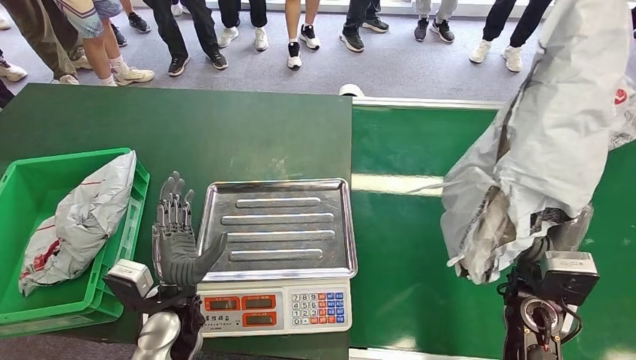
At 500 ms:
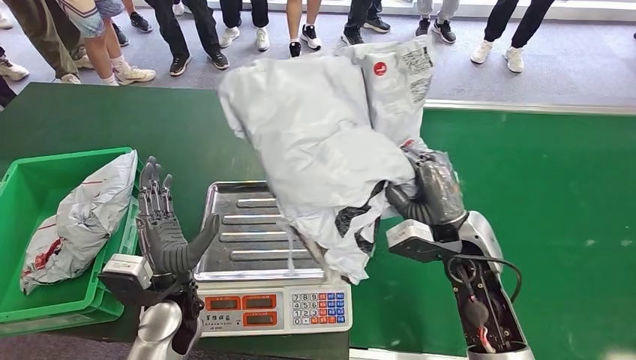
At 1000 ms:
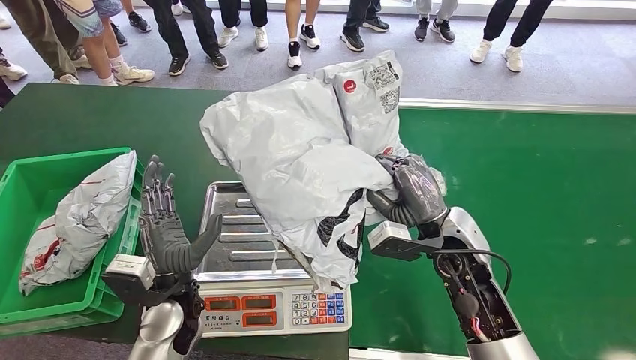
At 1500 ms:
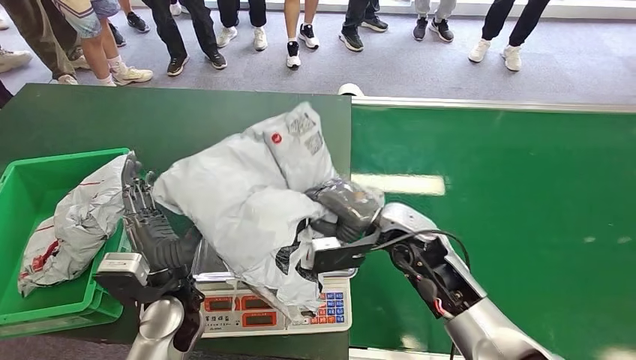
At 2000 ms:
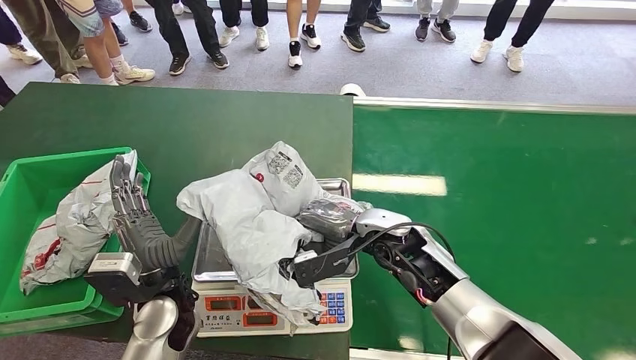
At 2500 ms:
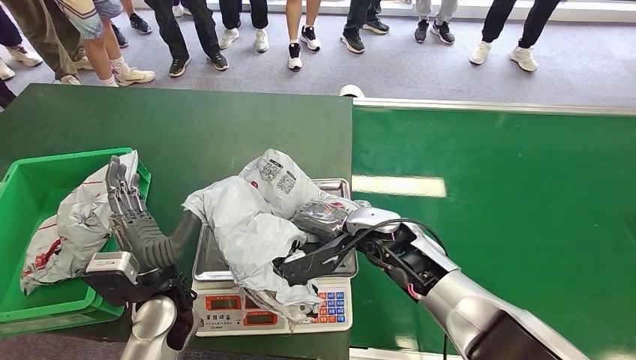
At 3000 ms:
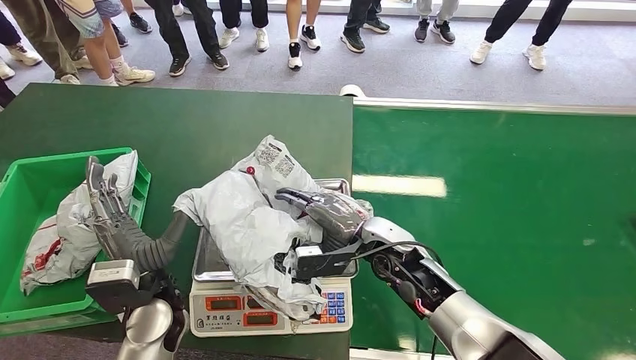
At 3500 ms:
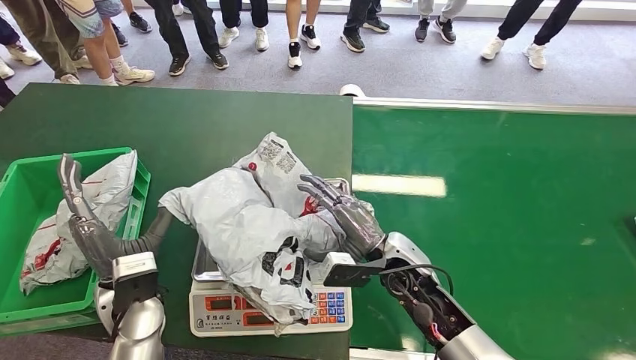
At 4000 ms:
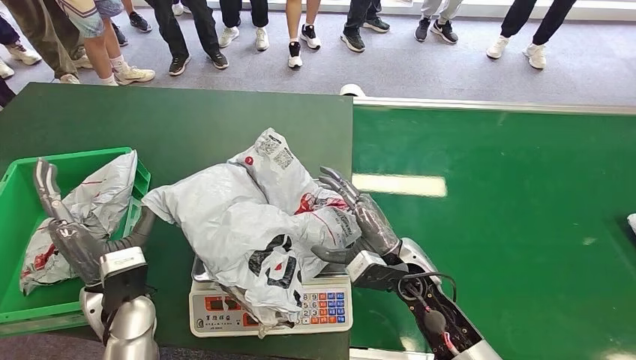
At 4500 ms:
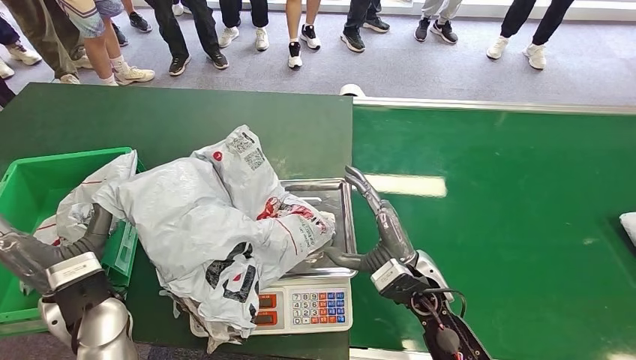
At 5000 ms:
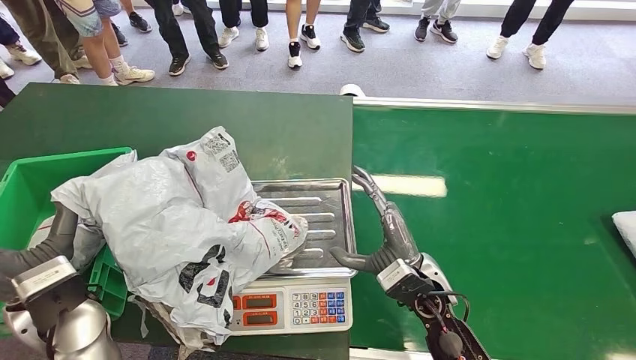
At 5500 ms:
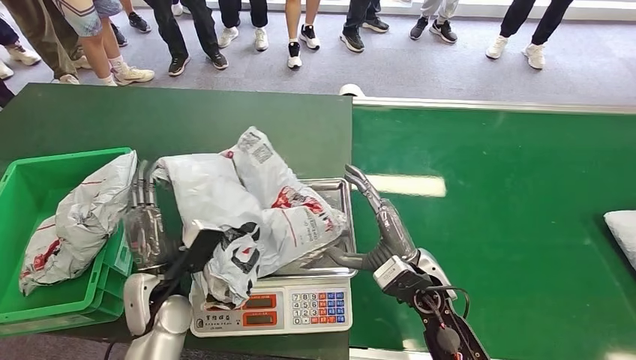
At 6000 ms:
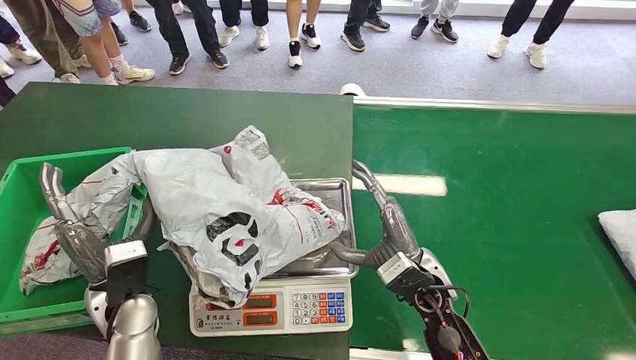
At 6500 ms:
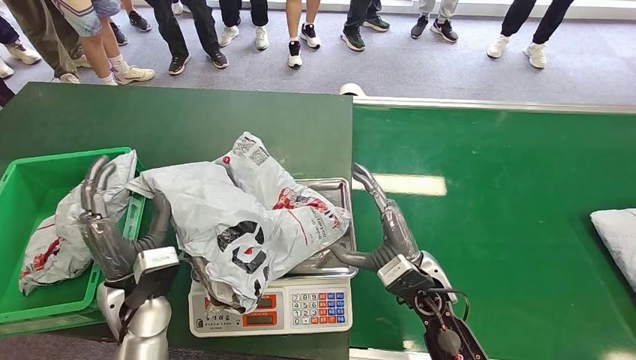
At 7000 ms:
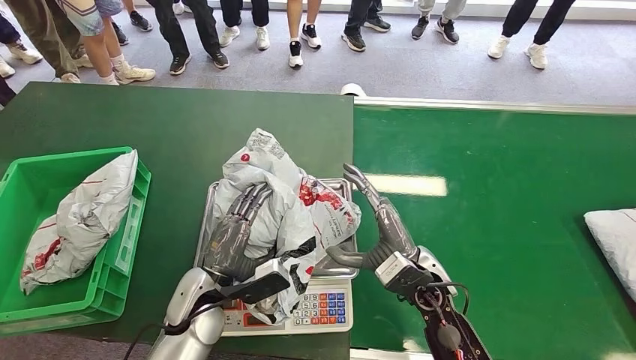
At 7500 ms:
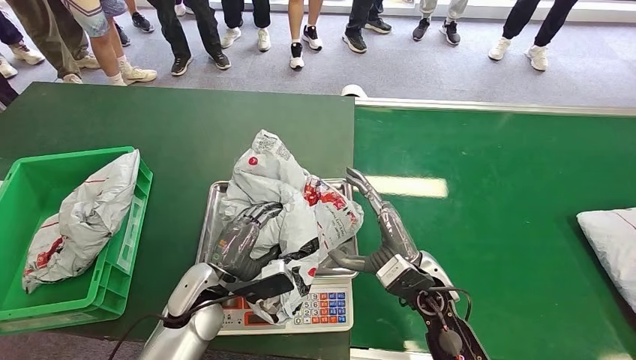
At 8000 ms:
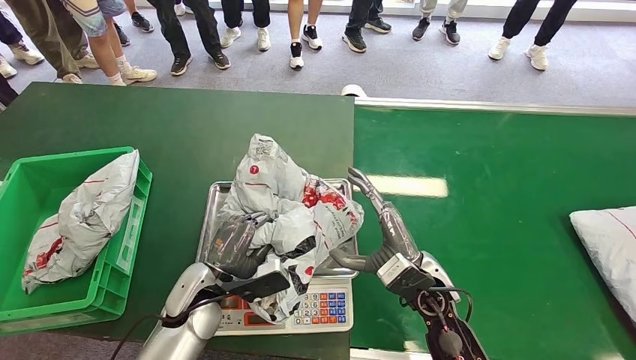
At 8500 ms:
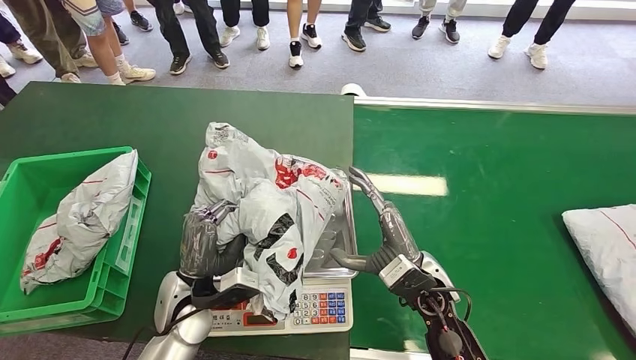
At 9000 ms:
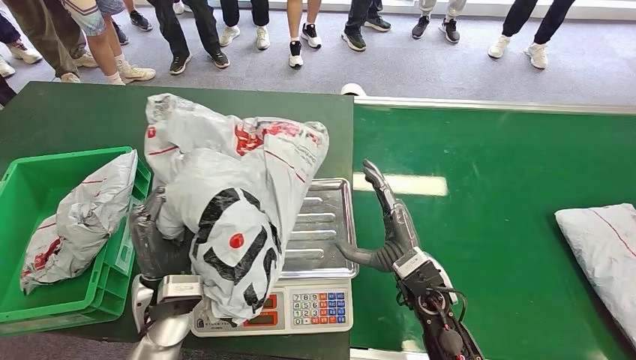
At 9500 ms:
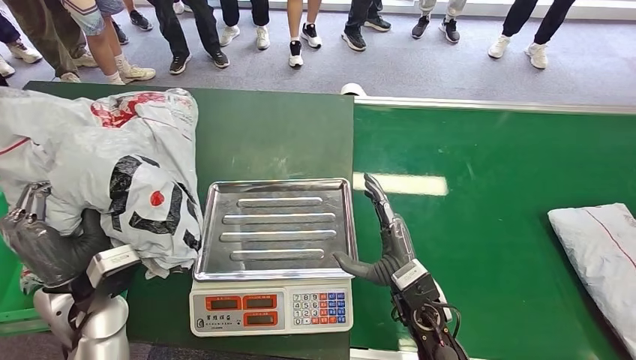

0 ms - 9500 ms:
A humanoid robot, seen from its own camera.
Task of the whole recording: Weigh the package on the weighing device and place it in the left basket.
Step, 500 ms - 4000 ms: Place the package onto the inbound machine.
Step, 4500 ms - 8500 ms: Pick up the package from the inbound machine.

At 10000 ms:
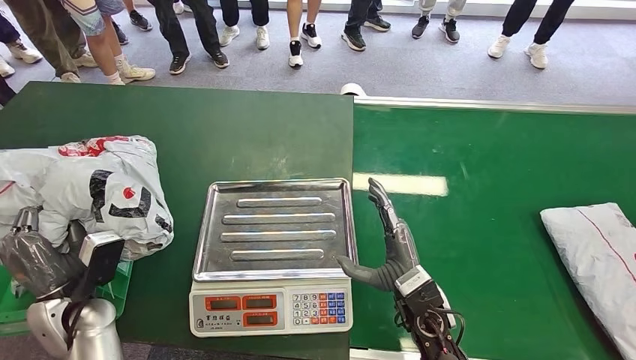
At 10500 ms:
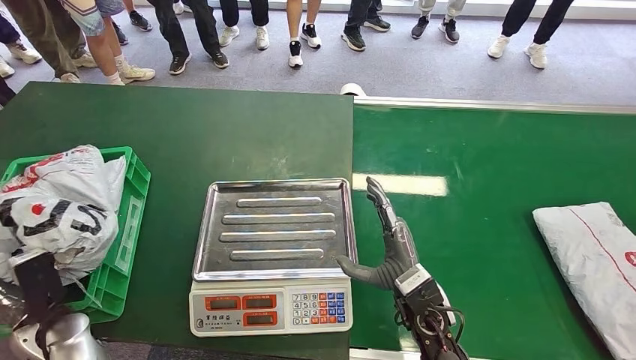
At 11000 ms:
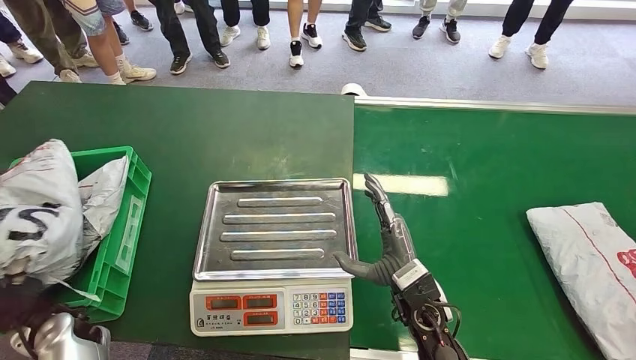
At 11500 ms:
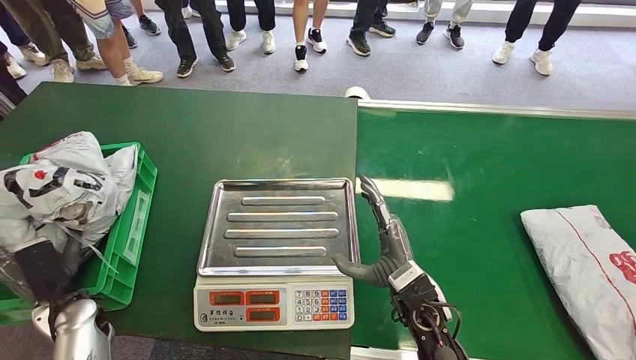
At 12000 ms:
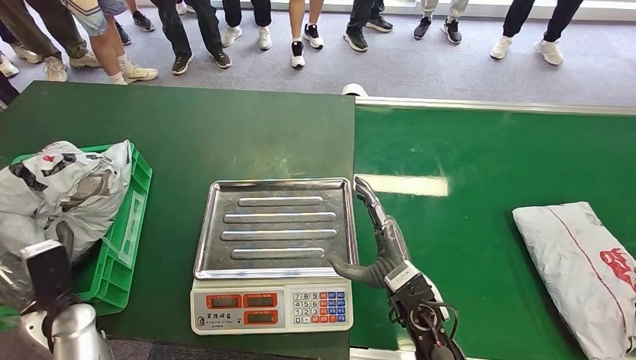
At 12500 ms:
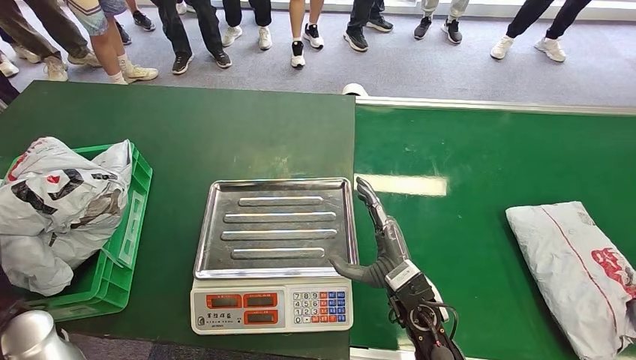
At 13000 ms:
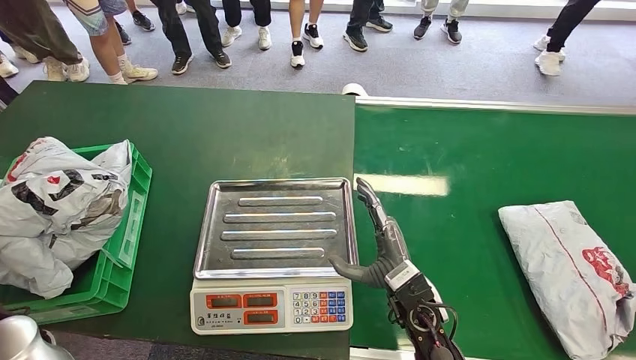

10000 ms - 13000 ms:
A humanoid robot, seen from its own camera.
Task of the whole recording: Weigh the package on the weighing device and place it in the left basket.
Step, 10000 ms - 13000 ms: Place the package into the parcel locker.
